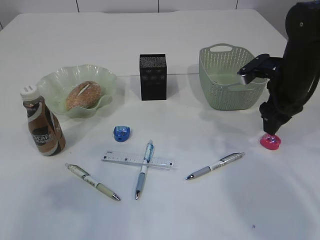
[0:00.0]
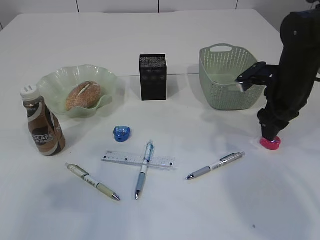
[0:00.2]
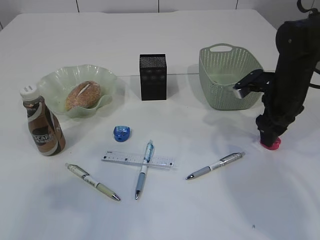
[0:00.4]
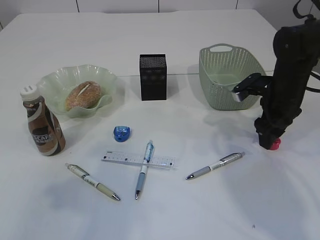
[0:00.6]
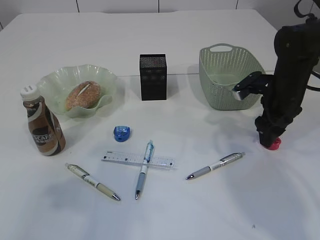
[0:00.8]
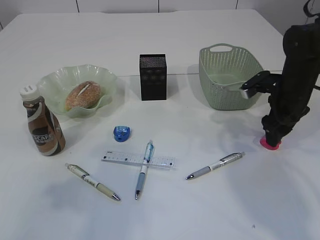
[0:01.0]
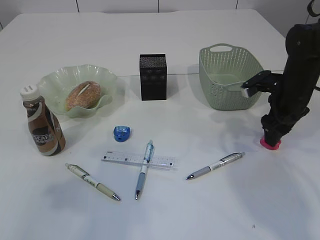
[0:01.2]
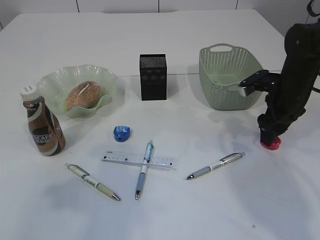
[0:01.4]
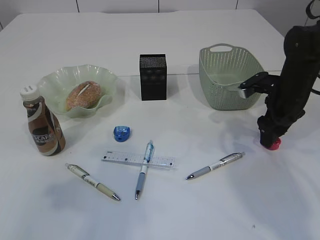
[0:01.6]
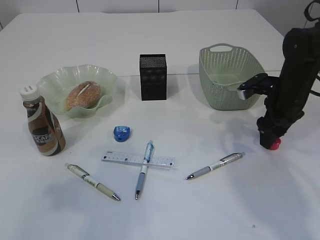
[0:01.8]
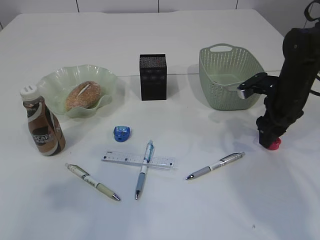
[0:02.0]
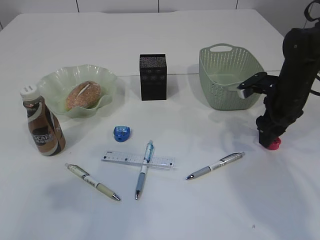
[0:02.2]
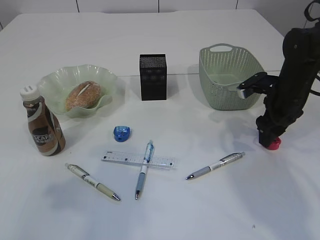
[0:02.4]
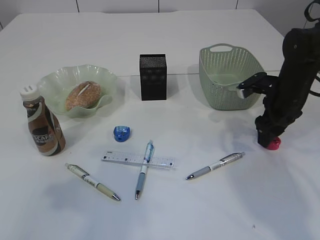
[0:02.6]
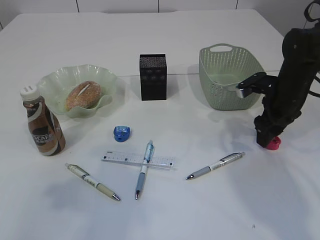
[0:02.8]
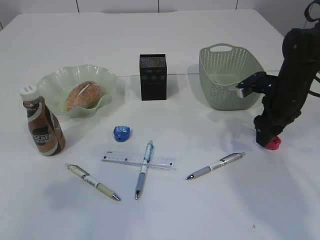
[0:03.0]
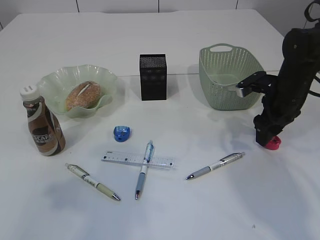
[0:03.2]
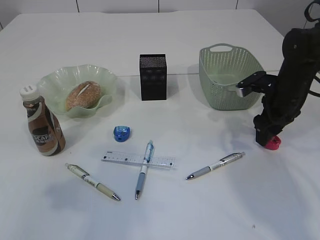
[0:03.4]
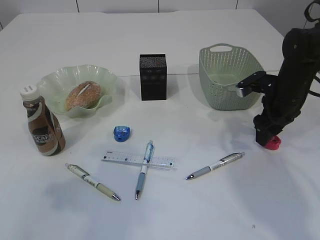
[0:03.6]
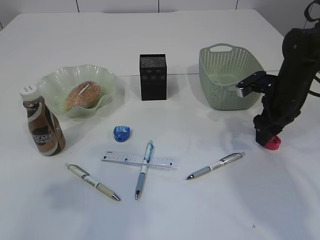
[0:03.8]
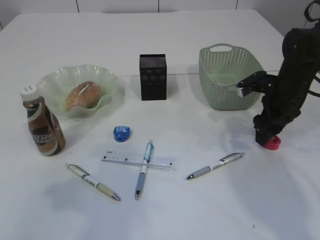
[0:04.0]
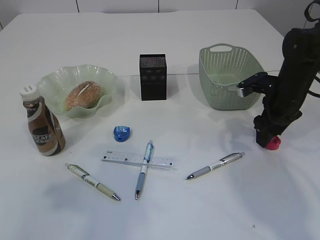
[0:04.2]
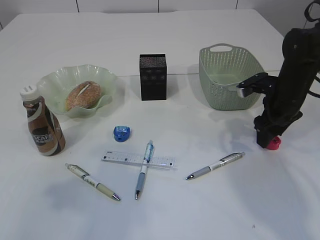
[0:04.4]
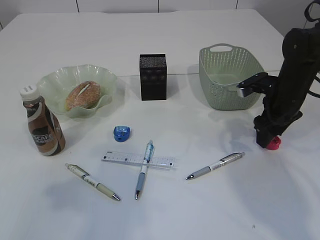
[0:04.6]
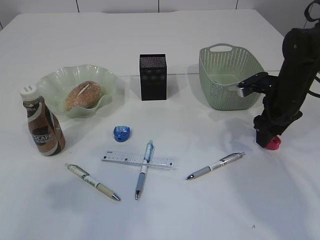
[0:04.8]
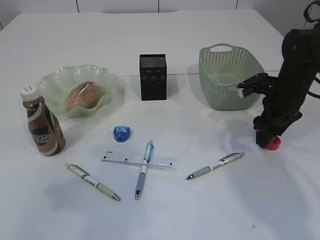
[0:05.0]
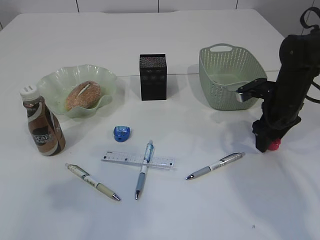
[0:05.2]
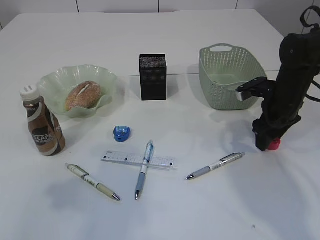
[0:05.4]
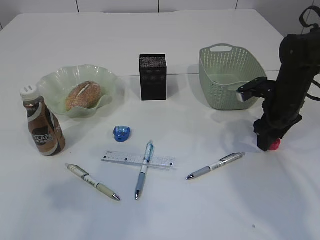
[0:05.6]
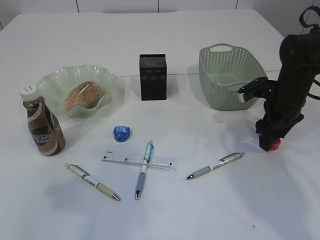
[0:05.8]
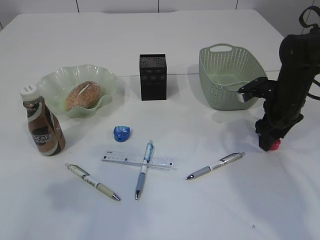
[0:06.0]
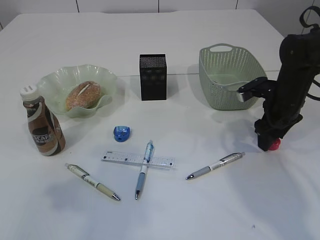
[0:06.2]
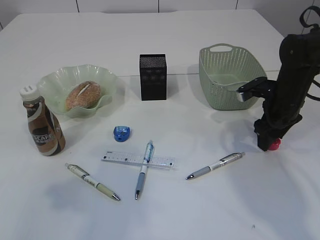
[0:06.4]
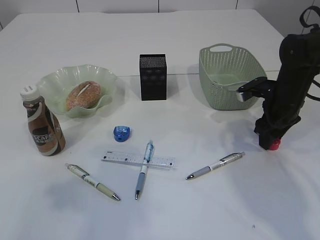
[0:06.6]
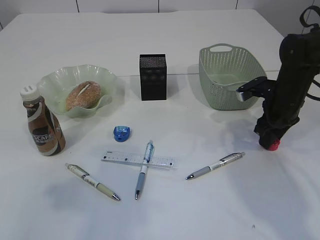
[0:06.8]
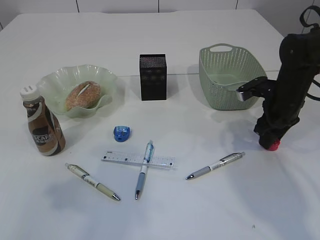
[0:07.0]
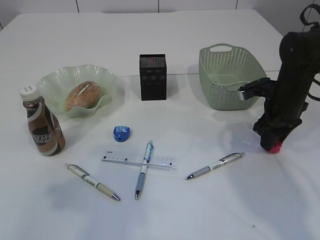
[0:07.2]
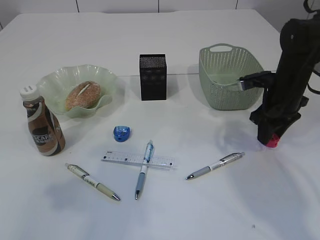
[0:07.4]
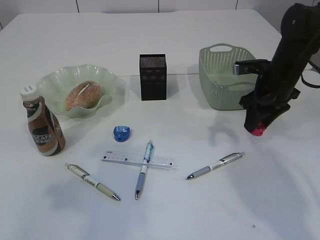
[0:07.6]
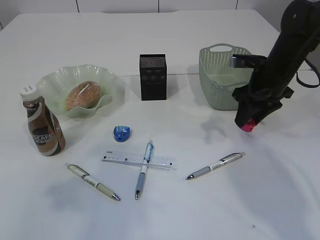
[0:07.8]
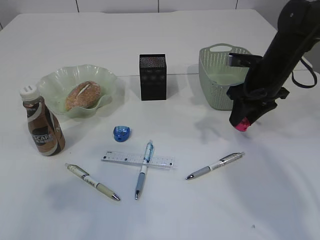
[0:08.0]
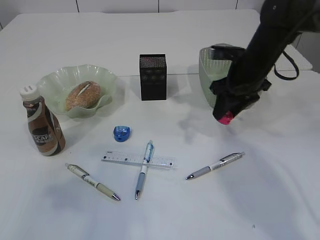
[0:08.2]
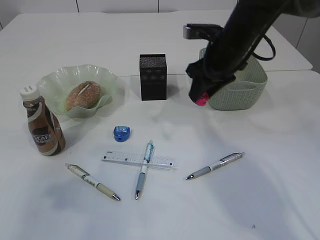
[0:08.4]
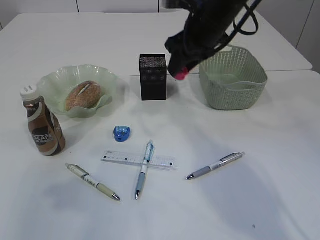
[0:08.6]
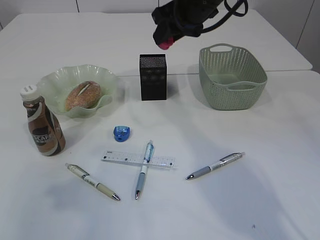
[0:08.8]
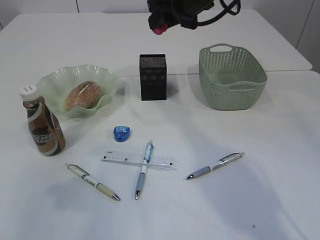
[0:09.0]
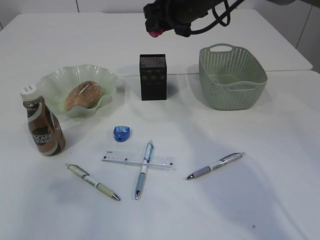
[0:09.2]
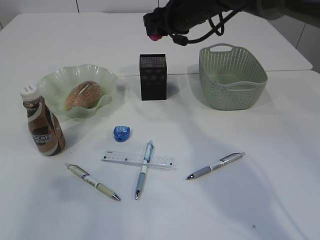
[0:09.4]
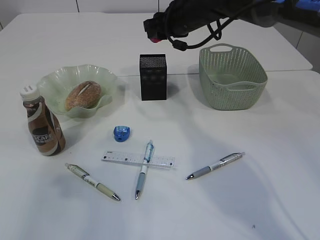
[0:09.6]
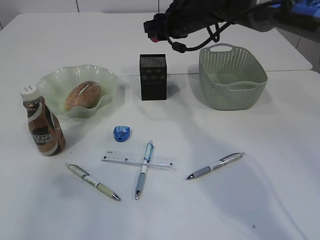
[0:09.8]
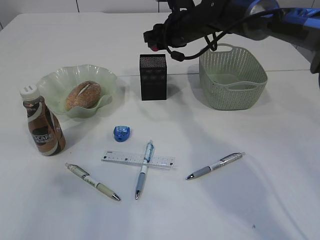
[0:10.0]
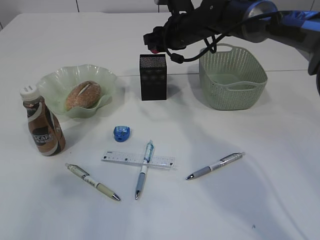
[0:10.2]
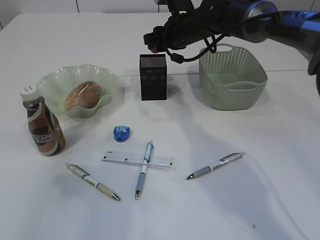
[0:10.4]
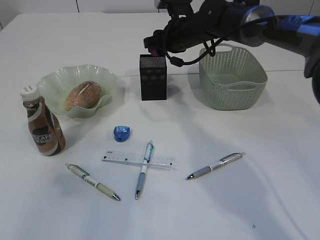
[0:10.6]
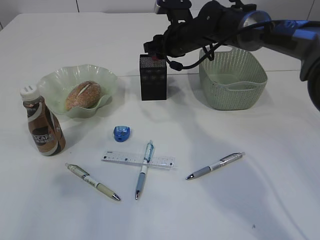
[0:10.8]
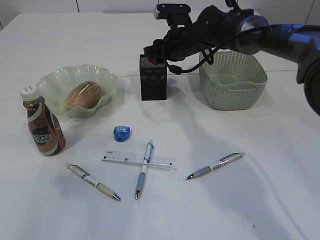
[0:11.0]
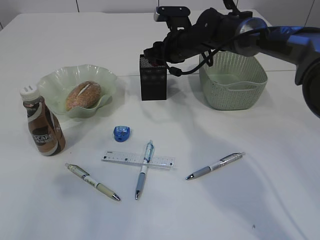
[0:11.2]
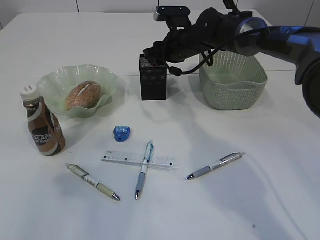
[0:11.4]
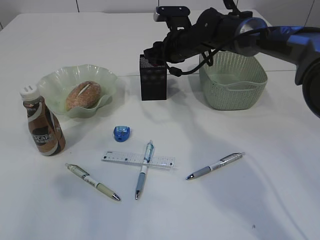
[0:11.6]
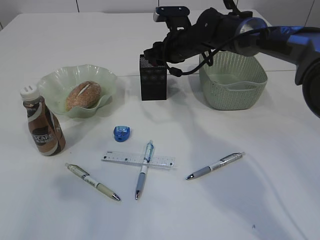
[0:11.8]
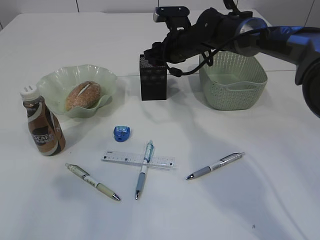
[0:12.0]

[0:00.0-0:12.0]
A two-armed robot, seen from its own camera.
Step, 0:00.0 to 0:07.6: Pick up the red pencil sharpener.
0:00.0 to 0:01.6: There are only small adjustments of the grippers.
0:01.6 to 0:04.4: The two grippers keep their place.
0:04.4 to 0:06.0: Both grippers stay put.
0:06.0 to 0:07.6: The right gripper closes.
0:07.6 to 0:09.0: The right gripper moves to the left and upward, roughly 20 cm.
0:09.0 to 0:10.4: The right gripper goes about 10 cm downward and forward.
0:10.4 to 0:12.0: The grippers make only small movements.

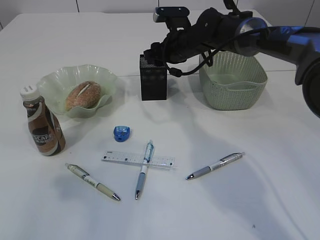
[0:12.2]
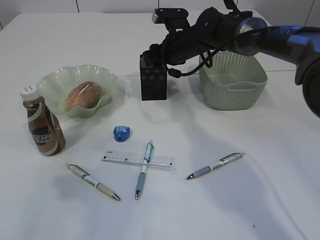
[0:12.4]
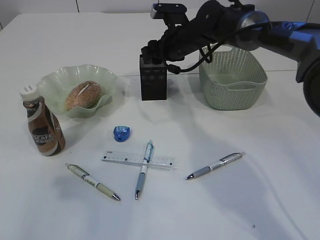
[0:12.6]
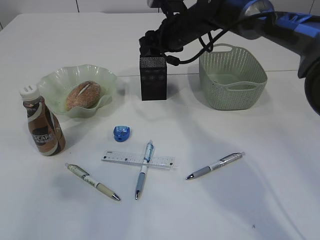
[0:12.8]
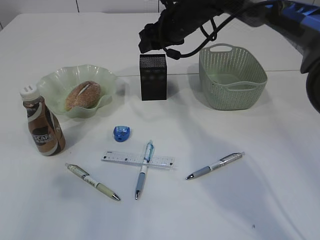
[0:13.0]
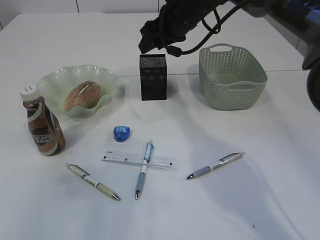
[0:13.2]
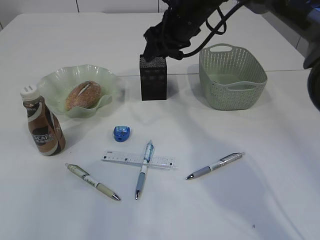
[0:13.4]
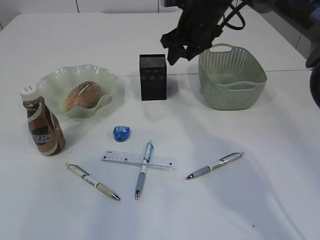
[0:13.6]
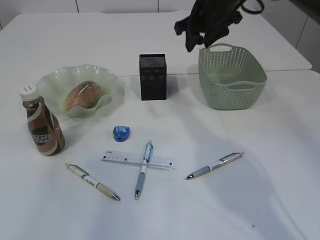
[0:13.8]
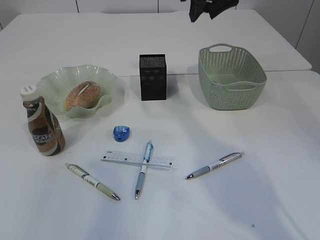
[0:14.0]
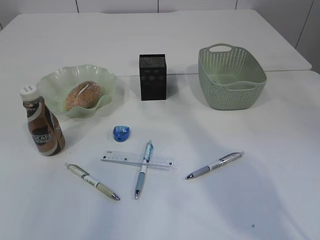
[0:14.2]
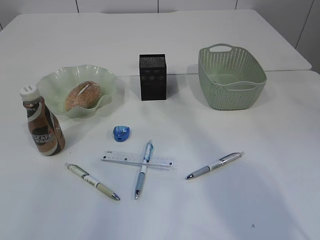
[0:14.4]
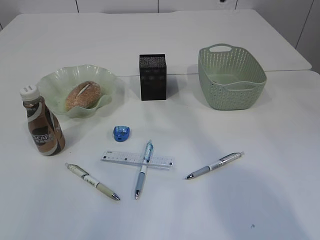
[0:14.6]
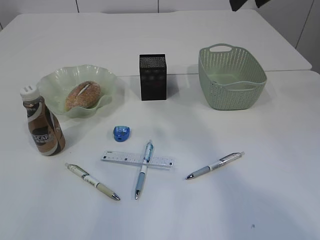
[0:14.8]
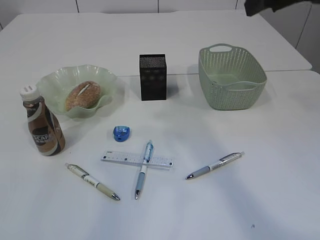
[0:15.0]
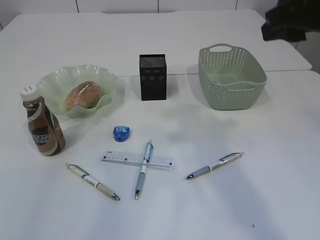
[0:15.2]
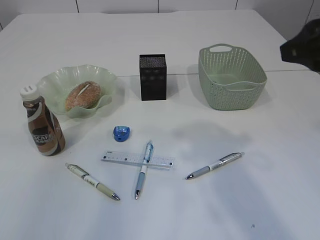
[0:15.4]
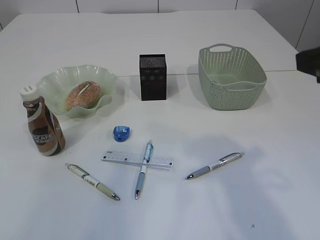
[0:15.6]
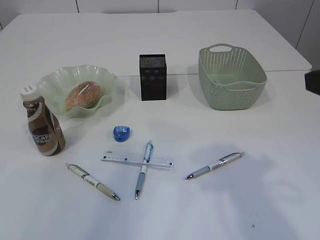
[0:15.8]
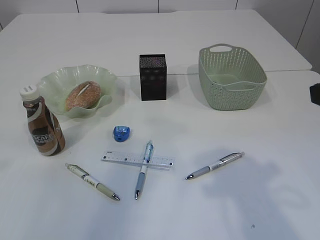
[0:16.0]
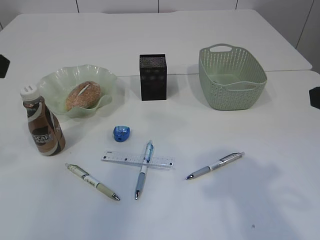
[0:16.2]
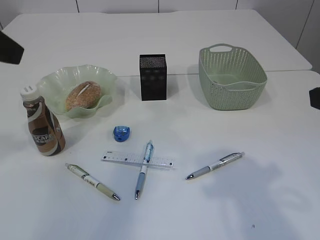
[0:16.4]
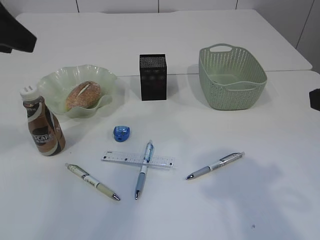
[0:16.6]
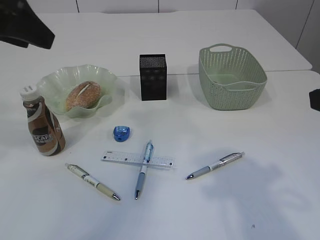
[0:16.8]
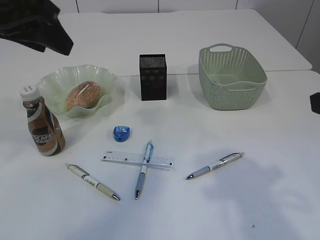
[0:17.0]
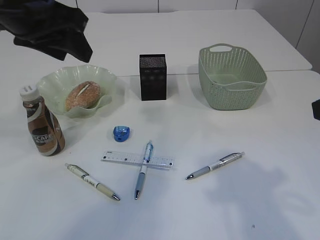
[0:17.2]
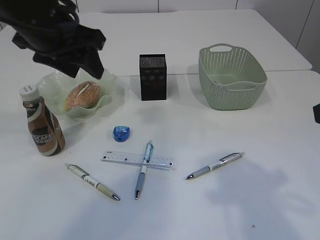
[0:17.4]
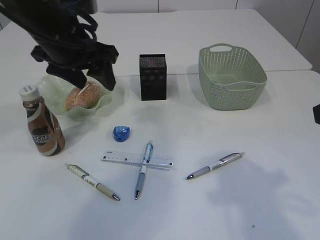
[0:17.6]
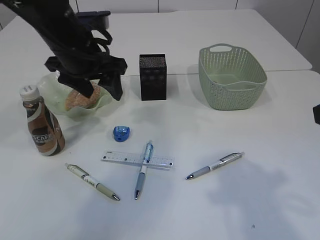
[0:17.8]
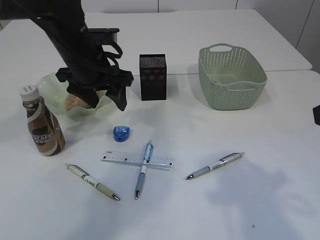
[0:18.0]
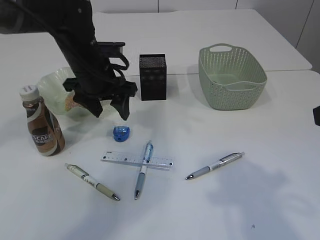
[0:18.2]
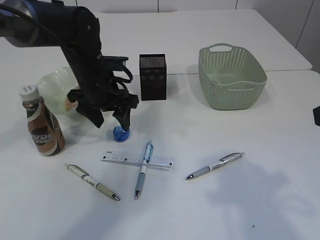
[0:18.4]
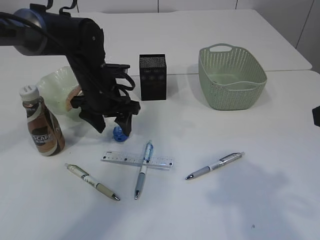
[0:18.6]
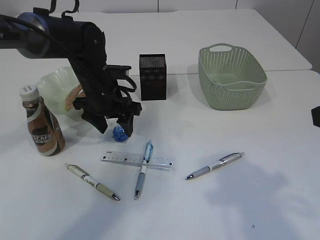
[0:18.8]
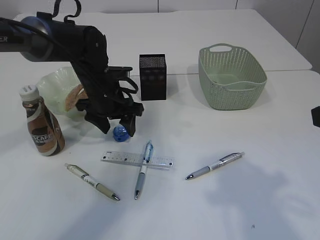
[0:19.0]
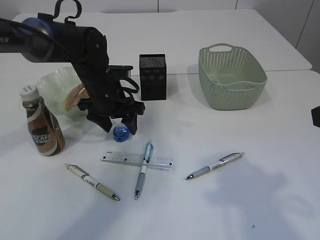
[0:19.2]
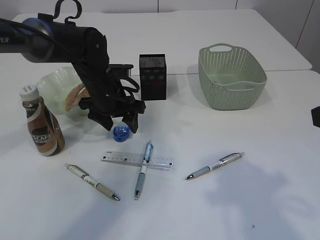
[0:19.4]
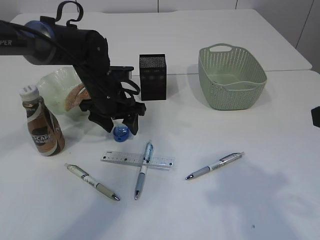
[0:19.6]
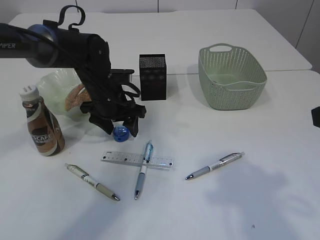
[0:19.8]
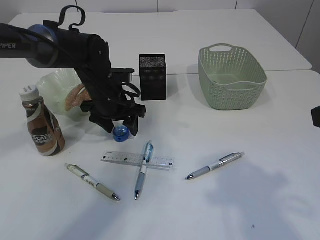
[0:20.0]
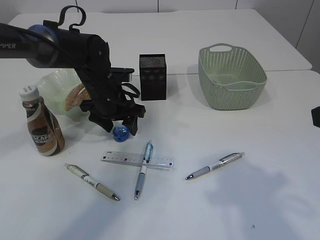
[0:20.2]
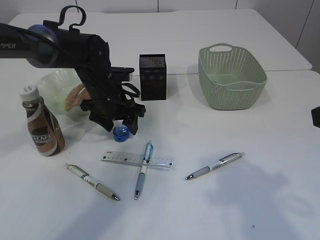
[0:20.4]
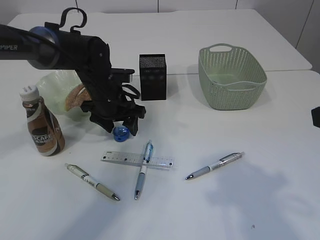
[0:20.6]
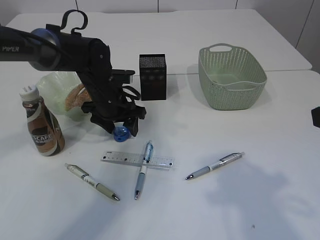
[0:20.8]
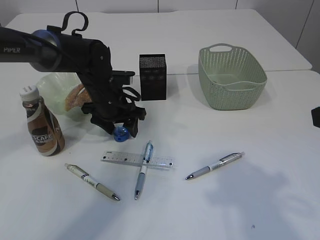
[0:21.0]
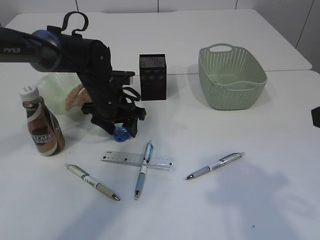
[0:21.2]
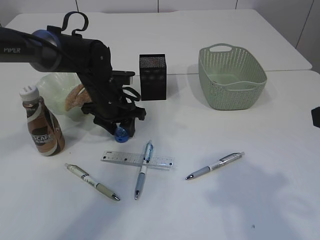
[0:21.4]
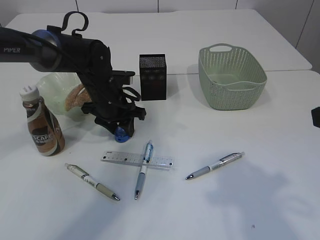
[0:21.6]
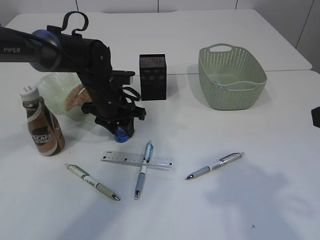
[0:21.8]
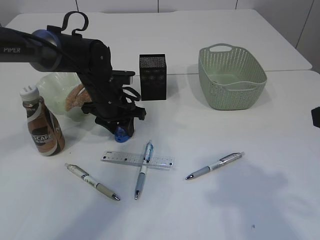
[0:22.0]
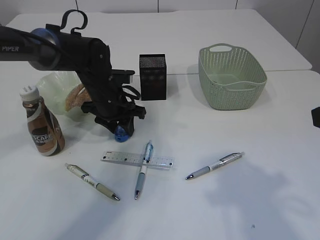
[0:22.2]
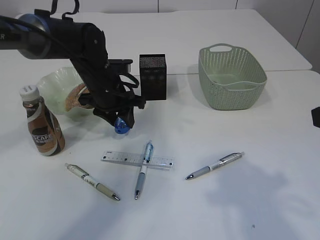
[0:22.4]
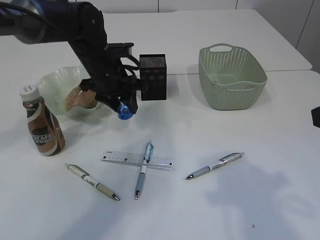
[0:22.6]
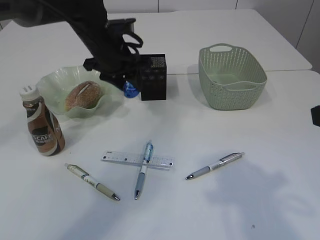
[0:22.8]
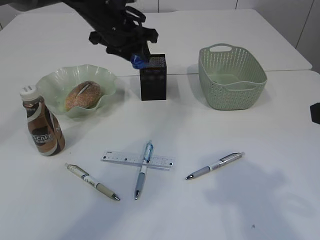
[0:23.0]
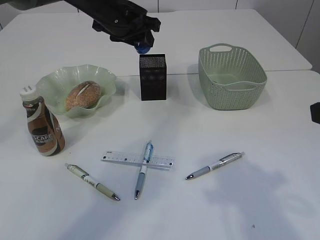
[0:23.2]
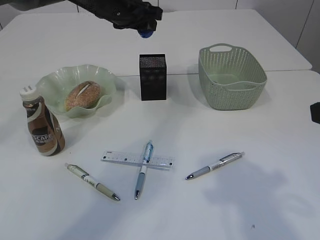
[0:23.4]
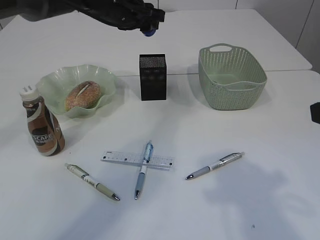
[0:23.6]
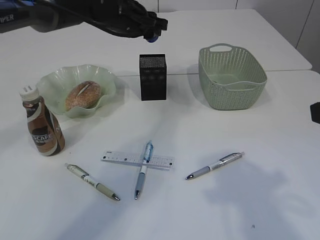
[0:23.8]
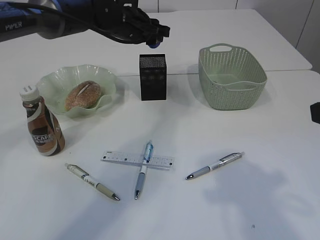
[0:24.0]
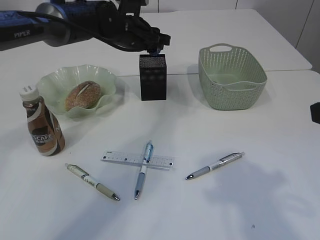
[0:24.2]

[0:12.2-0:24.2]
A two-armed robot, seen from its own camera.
Step, 0:13.4 to 0:22.6: Pick up the blue pencil sharpener.
0:12.2 to 0:13.8: The right gripper heads upward, covering some 10 cm.
0:13.8 to 0:15.2: The right gripper goes about 25 cm backward and upward.
0:15.2 to 0:16.6: The left gripper goes some 10 cm forward. The right gripper goes roughly 10 cm backward and downward.
0:16.6 to 0:18.2: The left gripper heads downward, forward and to the right, covering some 25 cm, and opens.
0:18.2 to 0:19.8: The left gripper heads downward, covering roughly 5 cm.
0:19.8 to 0:21.2: Both grippers stay put.
0:21.2 to 0:22.6: The left gripper moves upward, approximately 5 cm, and closes its fingers.
0:22.6 to 0:24.2: The left gripper goes about 10 cm forward.
